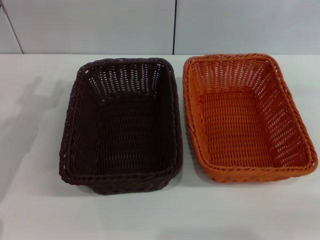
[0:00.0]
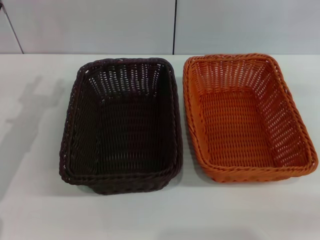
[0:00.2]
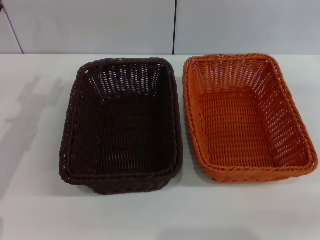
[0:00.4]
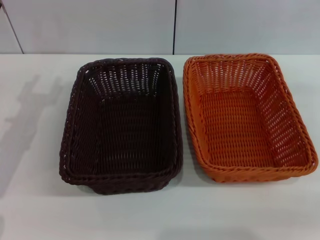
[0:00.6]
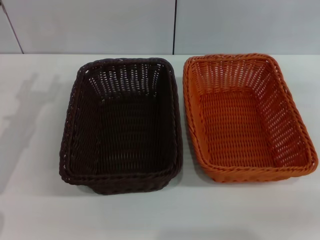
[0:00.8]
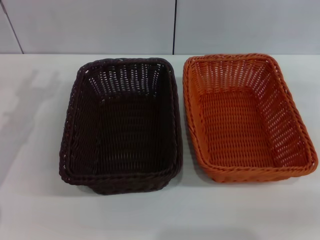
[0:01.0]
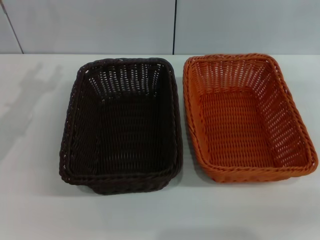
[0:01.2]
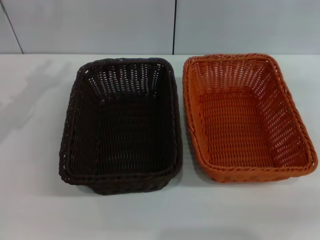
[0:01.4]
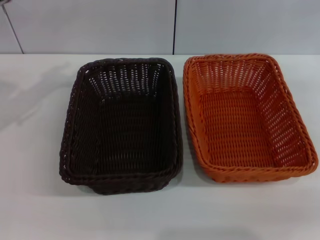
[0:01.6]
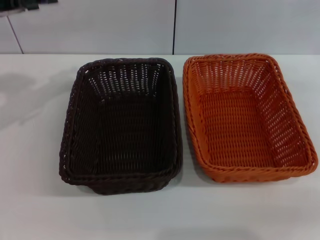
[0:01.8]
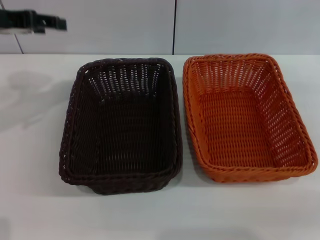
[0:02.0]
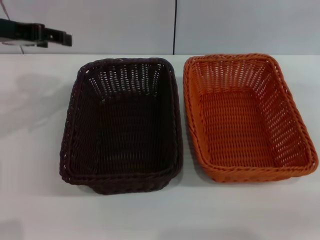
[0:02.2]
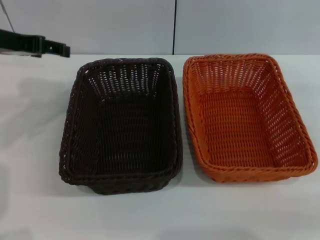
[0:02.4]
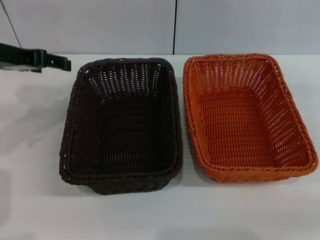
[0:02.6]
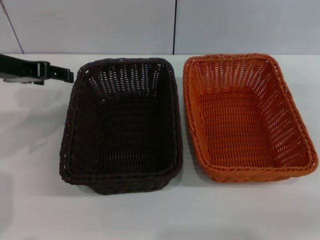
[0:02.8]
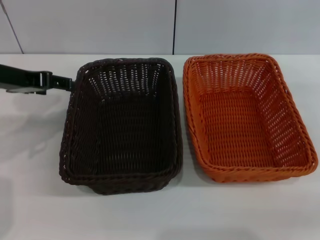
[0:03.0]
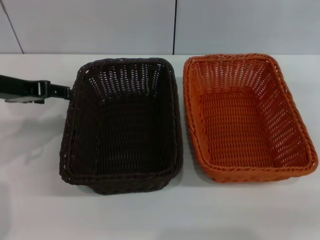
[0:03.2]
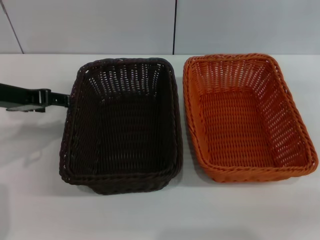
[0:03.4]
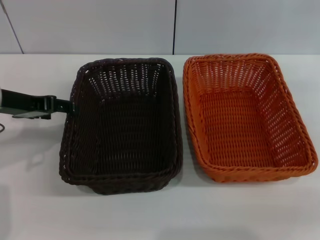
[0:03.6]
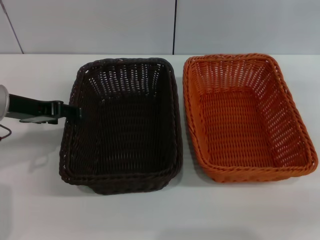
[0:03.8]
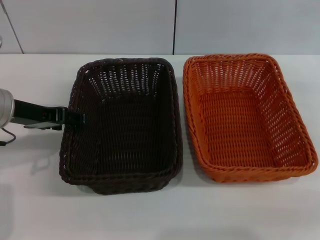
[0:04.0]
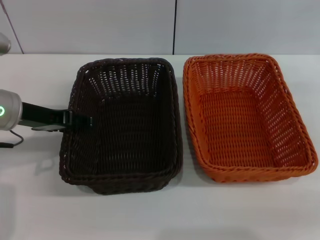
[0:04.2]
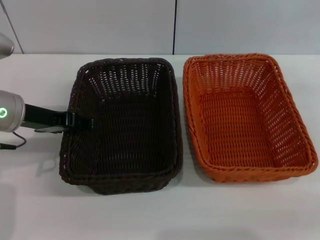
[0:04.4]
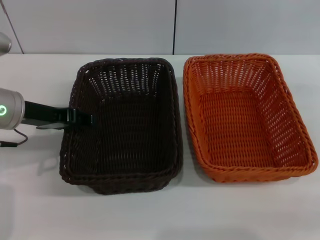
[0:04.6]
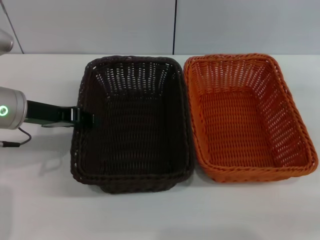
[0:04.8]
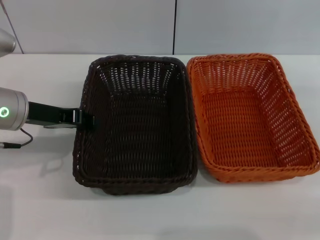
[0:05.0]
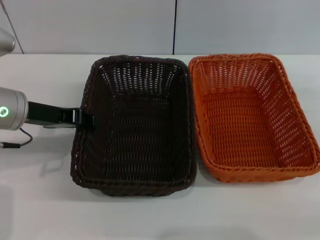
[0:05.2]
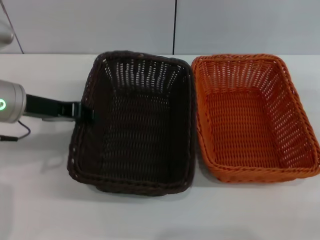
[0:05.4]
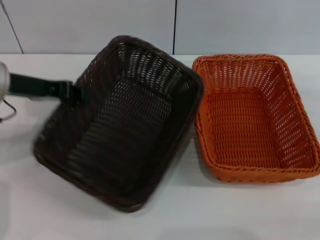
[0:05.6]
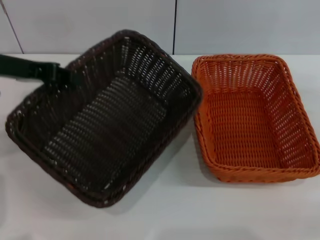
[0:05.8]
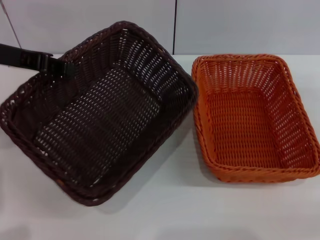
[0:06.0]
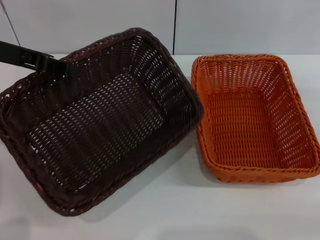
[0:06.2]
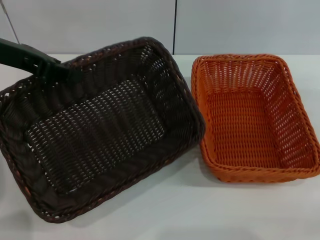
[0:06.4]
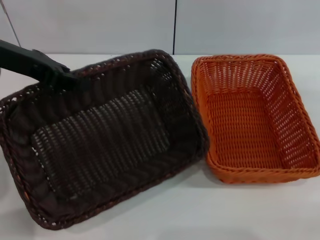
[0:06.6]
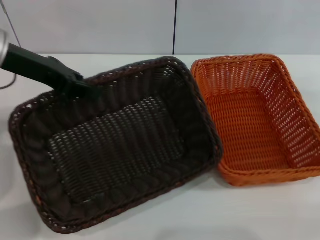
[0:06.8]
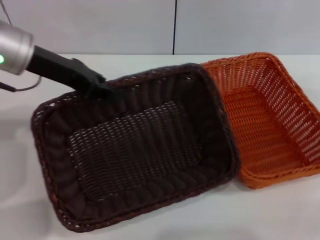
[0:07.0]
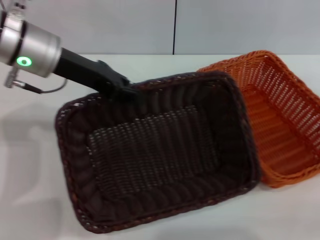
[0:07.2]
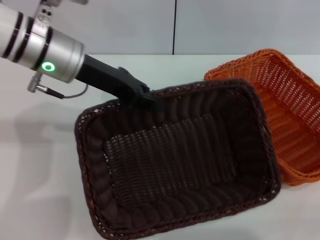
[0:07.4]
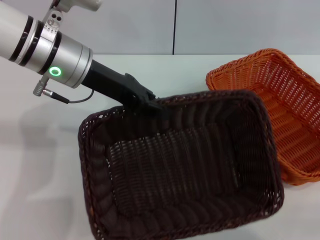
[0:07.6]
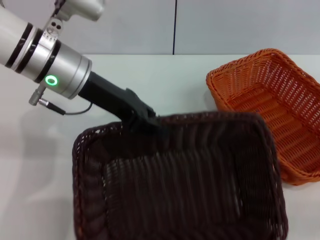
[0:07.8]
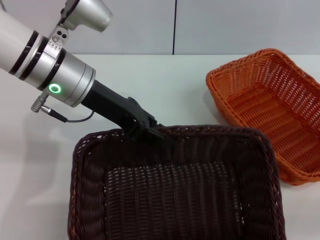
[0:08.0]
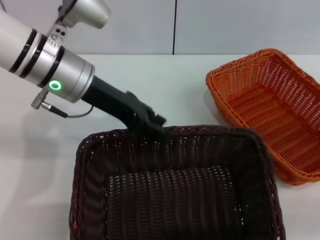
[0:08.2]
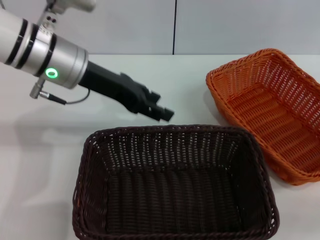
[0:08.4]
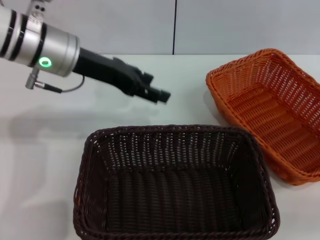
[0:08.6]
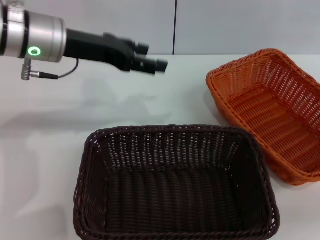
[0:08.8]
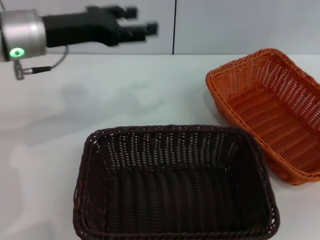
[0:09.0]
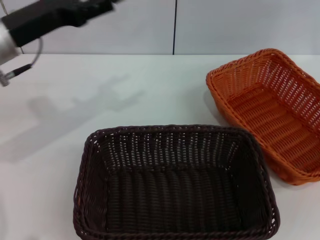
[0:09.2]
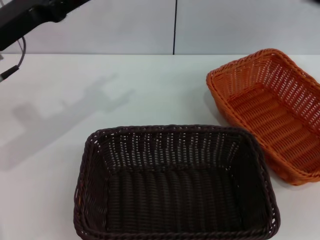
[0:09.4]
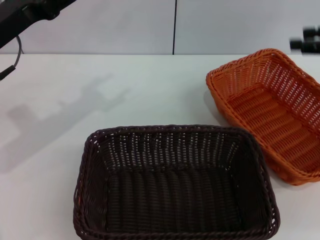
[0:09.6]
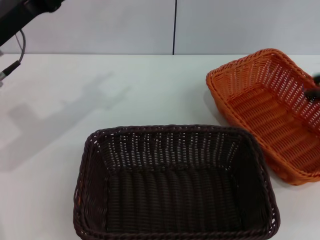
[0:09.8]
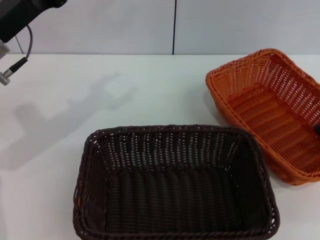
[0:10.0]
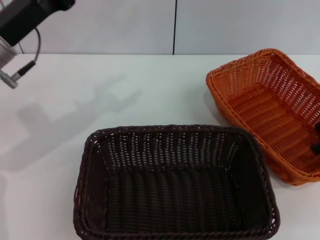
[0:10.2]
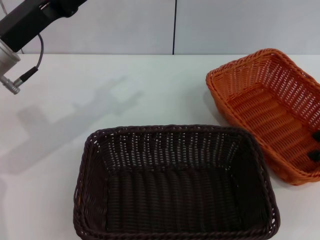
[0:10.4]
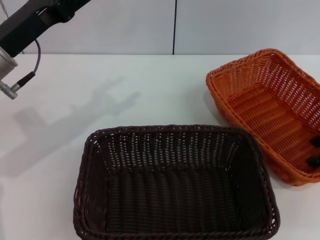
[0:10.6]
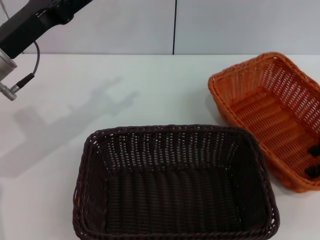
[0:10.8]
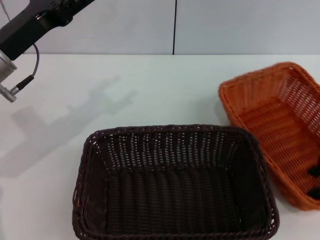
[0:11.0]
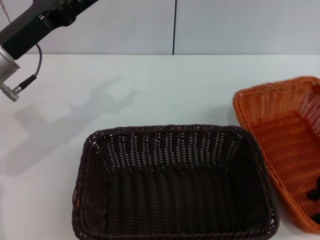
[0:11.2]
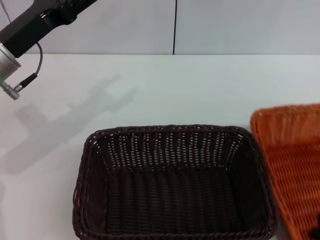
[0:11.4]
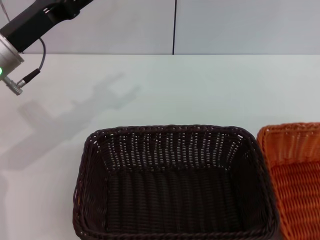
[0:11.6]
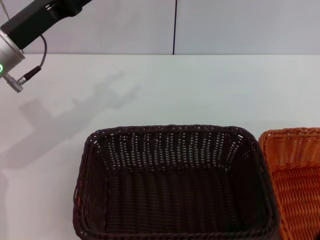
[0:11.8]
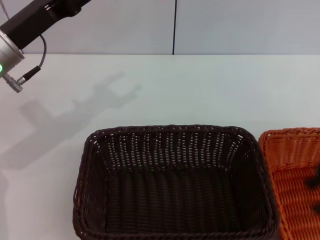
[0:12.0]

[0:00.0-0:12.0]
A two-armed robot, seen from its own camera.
Step, 0:00.0 to 0:05.4: Pick up the dark basket with the left gripper.
Step, 0:05.6 to 0:08.2: Place the dark basket in the center of view with the left gripper.
0:01.6 to 0:03.0: The left gripper moves to the right, approximately 5 cm.
0:03.0 to 0:04.4: The left gripper is displaced downward by about 5 cm.
0:04.4 to 0:06.0: The left gripper is displaced upward by about 10 cm, and closes up.
0:06.0 to 0:07.6: The left gripper heads to the right, covering roughly 10 cm.
0:07.6 to 0:09.0: The left gripper shifts about 5 cm to the left, and opens; the right gripper ends up about 5 cm from where it was.
0:09.0 to 0:10.4: The right gripper is displaced backward by some 5 cm; the left gripper changes place by approximately 5 cm.
0:10.4 to 0:12.0: The right gripper heads backward, covering about 5 cm.

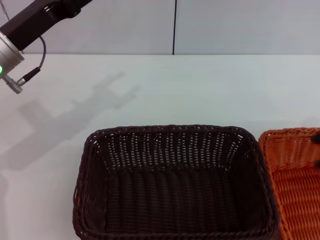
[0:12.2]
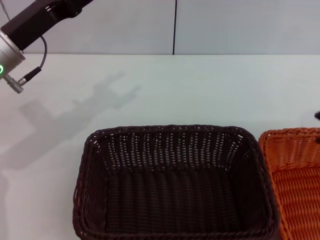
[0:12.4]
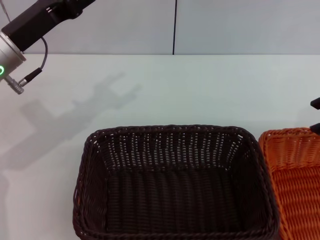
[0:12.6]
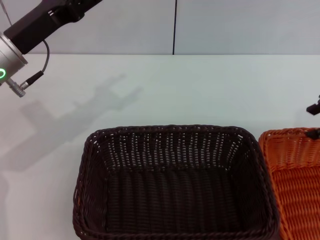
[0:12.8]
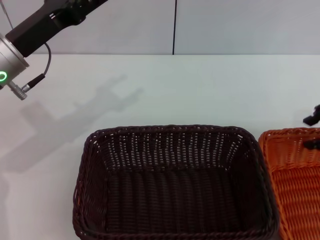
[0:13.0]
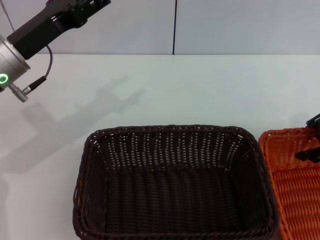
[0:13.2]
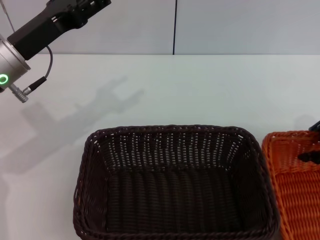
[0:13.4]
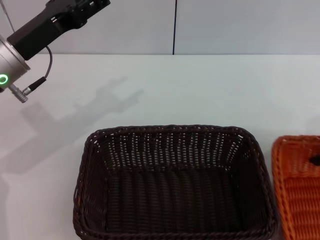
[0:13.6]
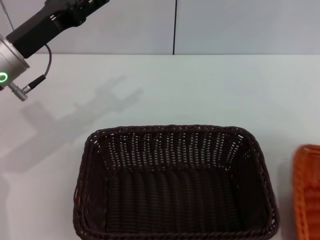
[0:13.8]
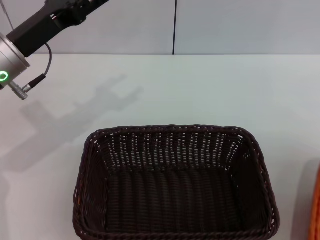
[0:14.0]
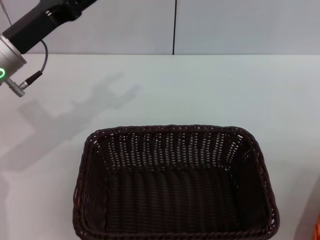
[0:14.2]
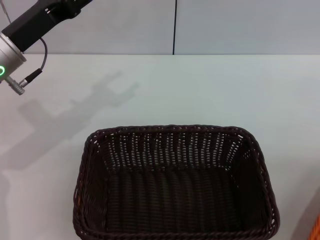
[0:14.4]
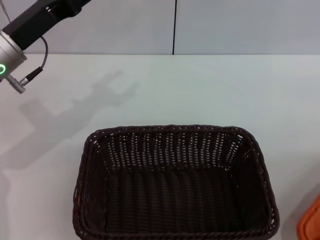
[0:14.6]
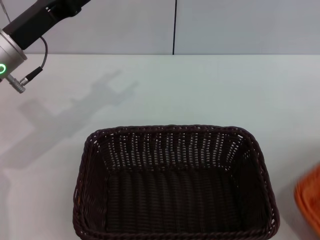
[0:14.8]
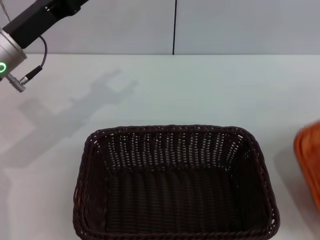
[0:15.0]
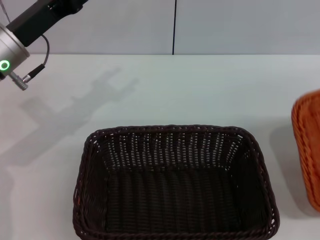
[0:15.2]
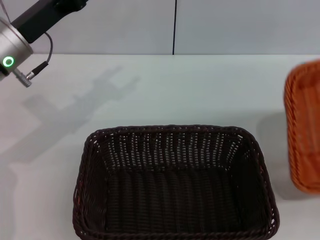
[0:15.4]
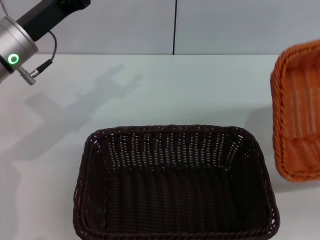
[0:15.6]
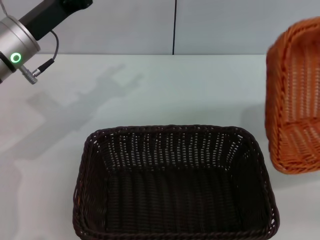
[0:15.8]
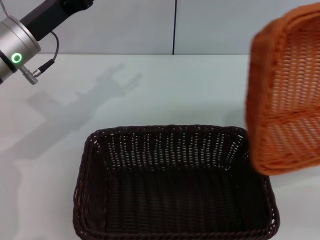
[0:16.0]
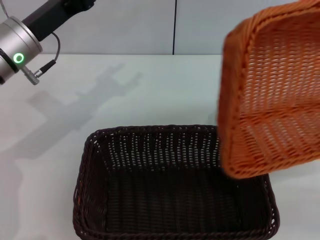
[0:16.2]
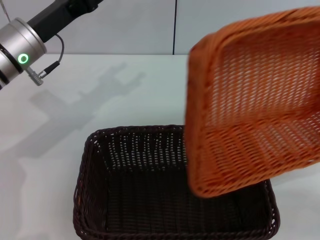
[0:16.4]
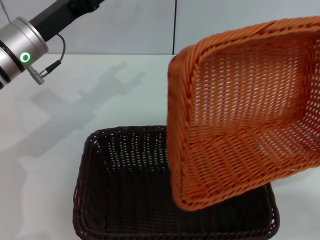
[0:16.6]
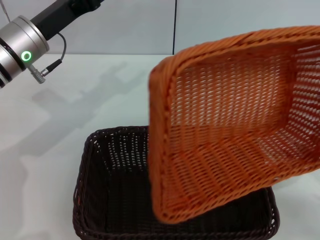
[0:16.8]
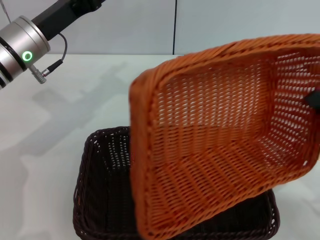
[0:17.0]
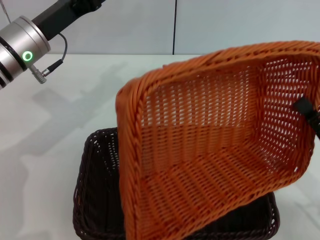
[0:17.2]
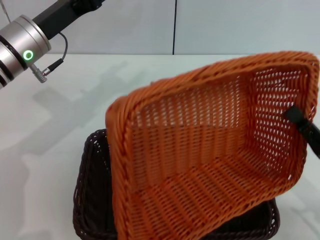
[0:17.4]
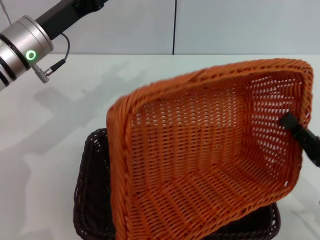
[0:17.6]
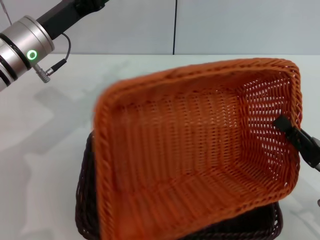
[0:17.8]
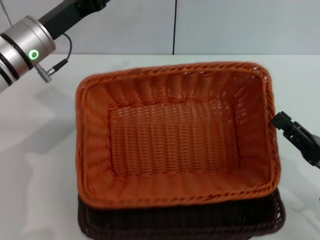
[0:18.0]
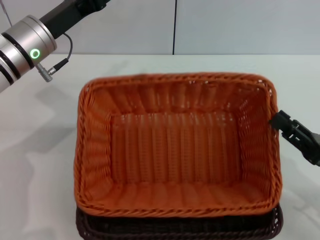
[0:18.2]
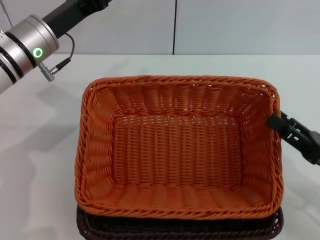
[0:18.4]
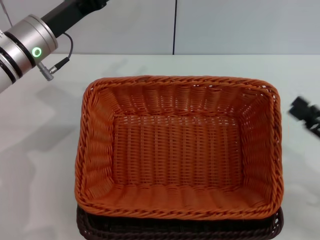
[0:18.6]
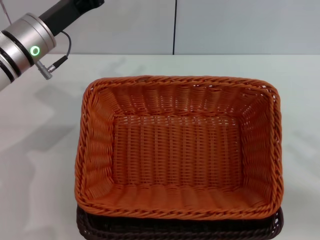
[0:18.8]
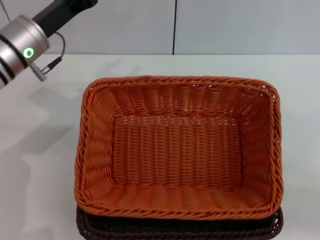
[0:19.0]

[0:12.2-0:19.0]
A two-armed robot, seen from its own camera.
Step, 0:12.2 to 0:15.2: Pick up the light basket with the right gripper.
Step, 0:15.4 to 0:18.2: Place the light basket on the dark basket with the right gripper.
0:12.2 to 0:13.6: The right gripper is displaced downward by approximately 5 cm.
0:13.6 to 0:15.0: The right gripper moves to the right and backward, about 25 cm, and closes up.
0:15.0 to 0:16.2: The right gripper is displaced to the left and downward by approximately 15 cm.
0:16.2 to 0:17.6: The right gripper heads to the left and downward, covering approximately 10 cm.
0:17.6 to 0:19.0: The right gripper is displaced to the right and upward by approximately 15 cm, and opens.
